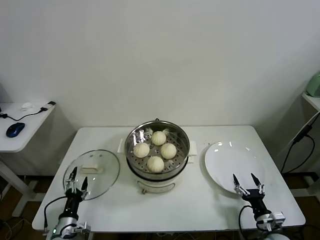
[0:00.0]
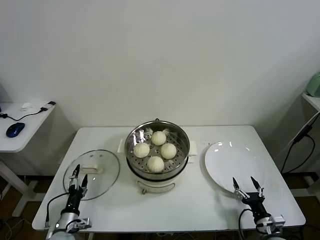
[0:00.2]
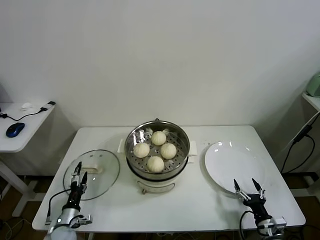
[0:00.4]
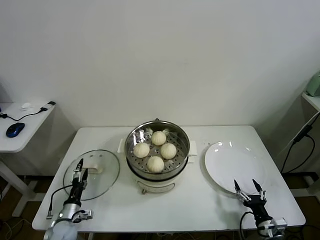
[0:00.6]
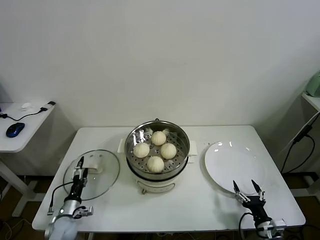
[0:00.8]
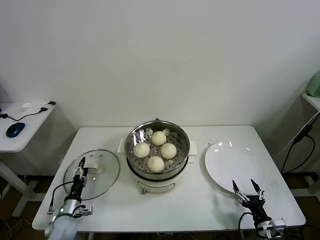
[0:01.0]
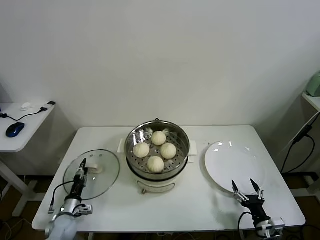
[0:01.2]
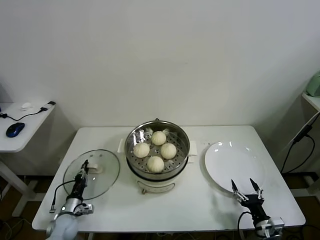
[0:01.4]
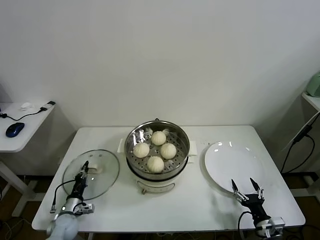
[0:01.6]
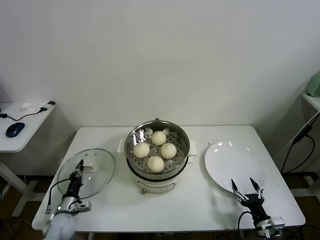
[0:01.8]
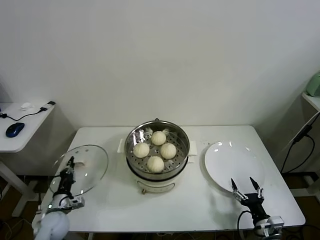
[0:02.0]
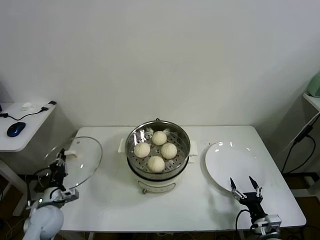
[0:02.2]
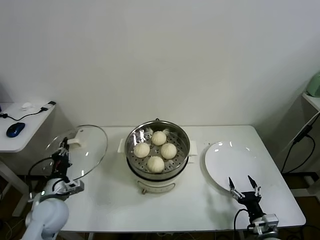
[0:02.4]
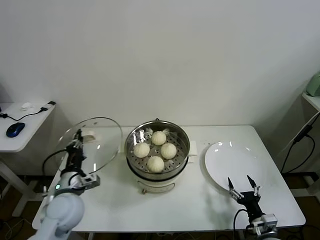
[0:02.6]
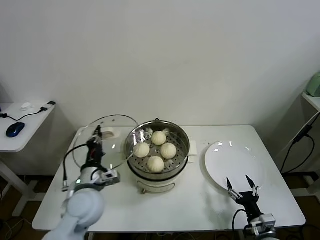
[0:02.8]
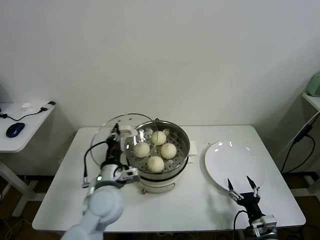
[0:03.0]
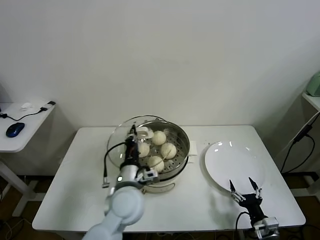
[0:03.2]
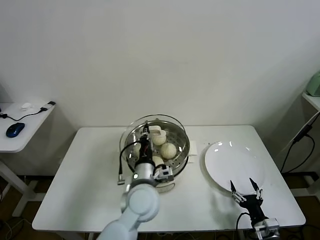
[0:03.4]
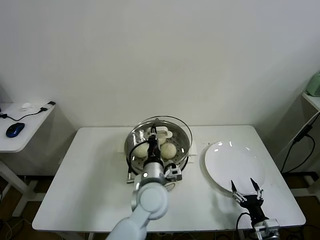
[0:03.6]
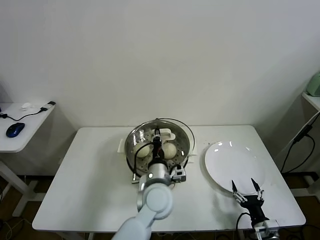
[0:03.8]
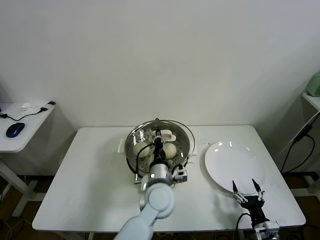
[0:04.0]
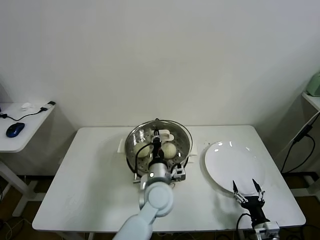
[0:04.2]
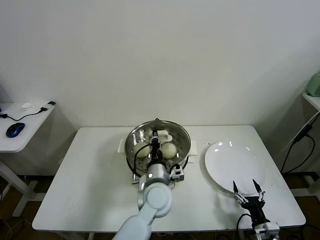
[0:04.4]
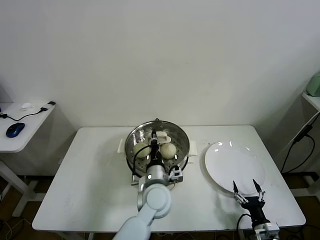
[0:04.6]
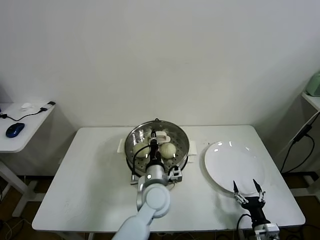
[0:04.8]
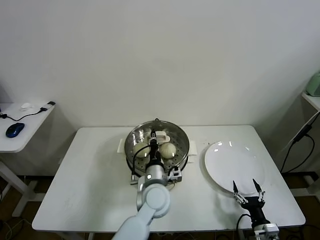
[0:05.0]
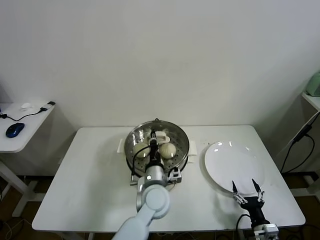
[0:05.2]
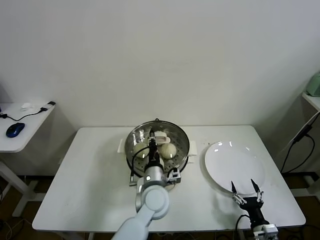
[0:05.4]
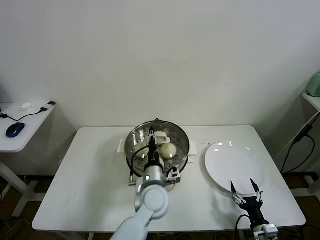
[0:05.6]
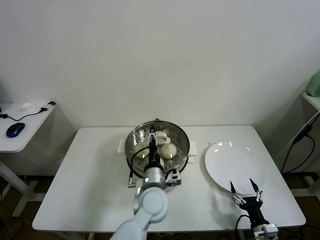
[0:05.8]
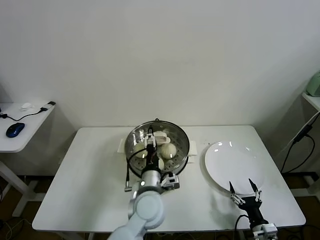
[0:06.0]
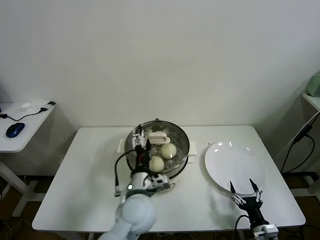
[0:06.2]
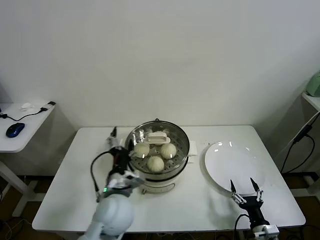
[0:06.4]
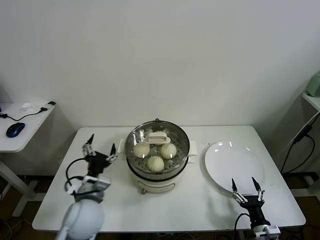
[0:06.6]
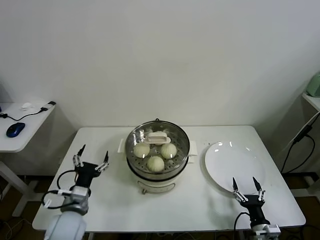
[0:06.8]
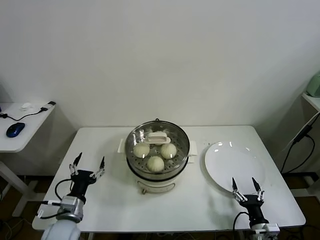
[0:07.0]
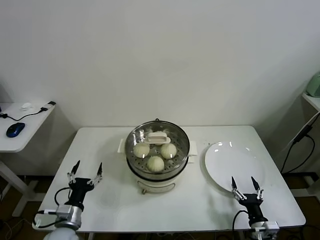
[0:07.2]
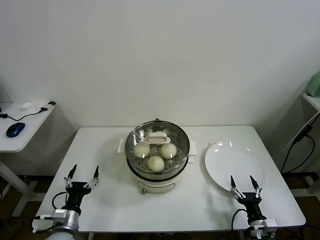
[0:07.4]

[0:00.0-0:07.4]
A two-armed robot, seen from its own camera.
Task of the whole recording: take steamed baozi put them in steamer.
Step, 0:01.8 to 0:05.8: Place the pot lid on the steamer with left gripper.
0:00.0 to 0:01.4: The left gripper goes roughly 10 cm forward, and closes its fingers.
0:01.4 to 0:03.0: The left gripper travels upward and to the right by approximately 35 cm.
0:03.0 to 0:04.4: The left gripper goes about 15 cm to the right.
0:04.4 to 0:06.0: The left gripper opens up.
0:06.0 to 0:07.4: The left gripper goes about 30 cm to the left.

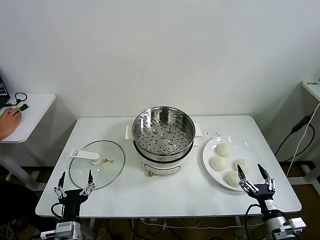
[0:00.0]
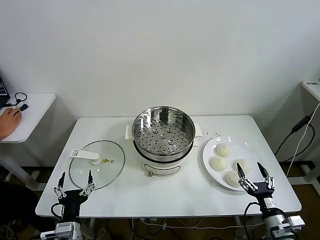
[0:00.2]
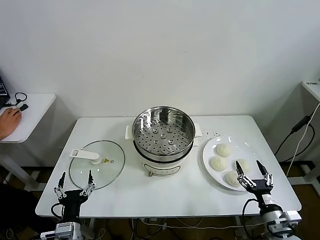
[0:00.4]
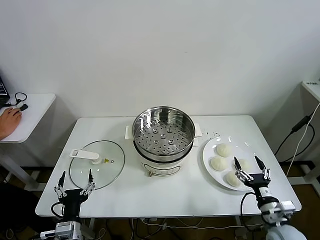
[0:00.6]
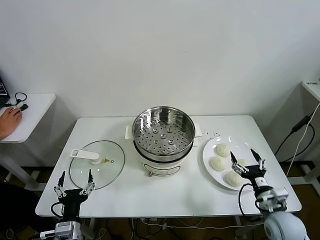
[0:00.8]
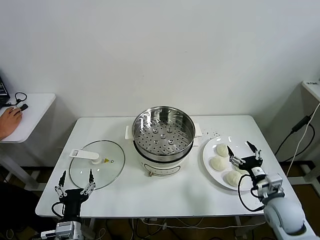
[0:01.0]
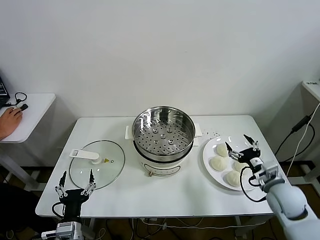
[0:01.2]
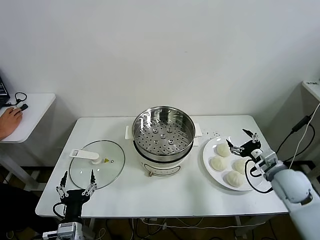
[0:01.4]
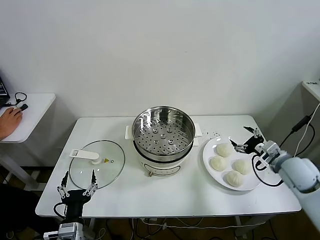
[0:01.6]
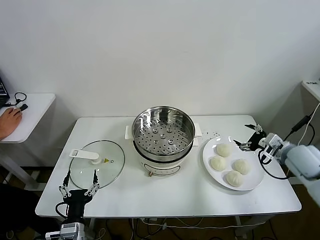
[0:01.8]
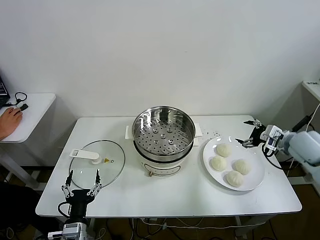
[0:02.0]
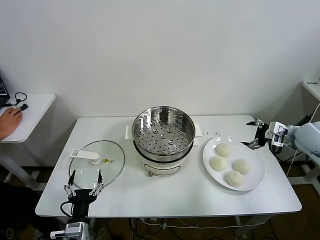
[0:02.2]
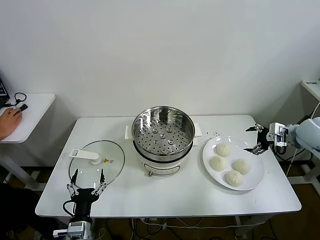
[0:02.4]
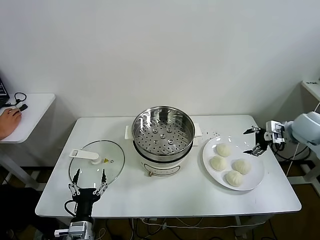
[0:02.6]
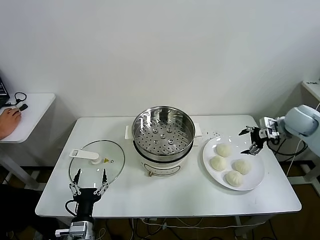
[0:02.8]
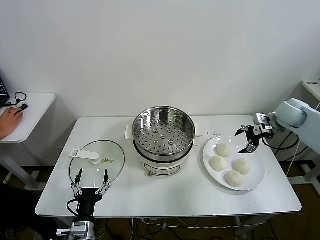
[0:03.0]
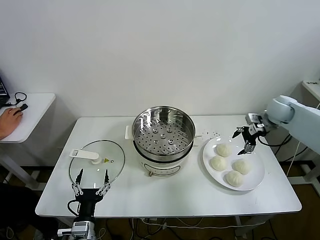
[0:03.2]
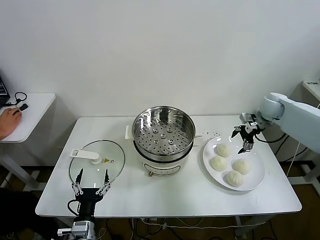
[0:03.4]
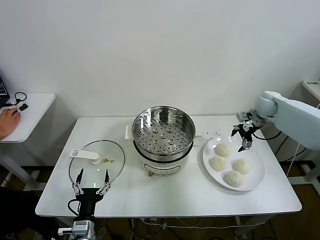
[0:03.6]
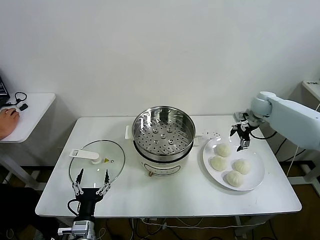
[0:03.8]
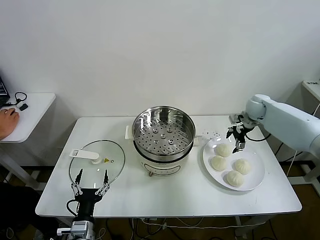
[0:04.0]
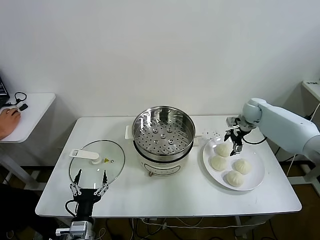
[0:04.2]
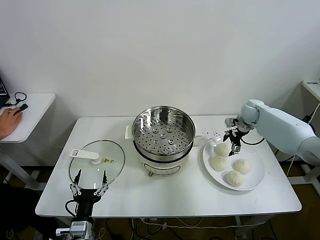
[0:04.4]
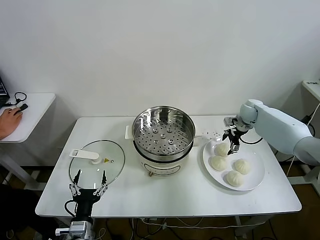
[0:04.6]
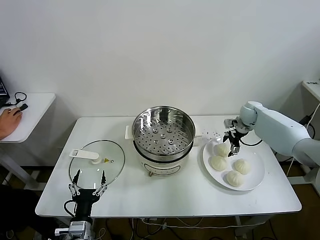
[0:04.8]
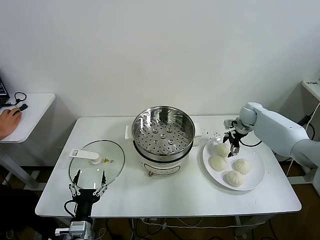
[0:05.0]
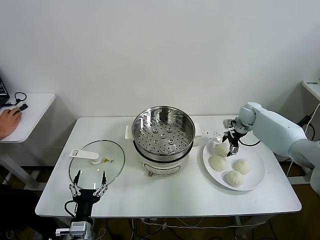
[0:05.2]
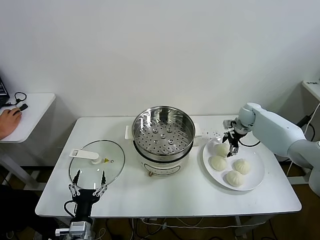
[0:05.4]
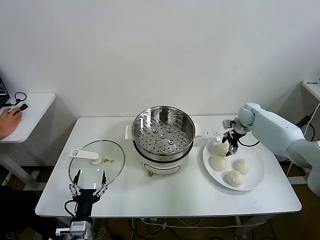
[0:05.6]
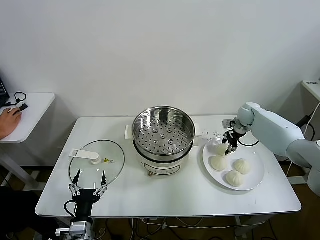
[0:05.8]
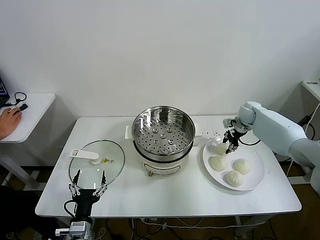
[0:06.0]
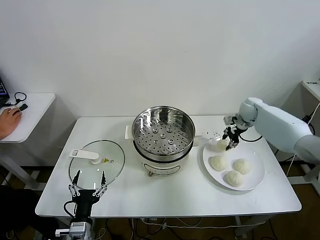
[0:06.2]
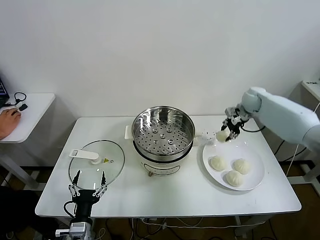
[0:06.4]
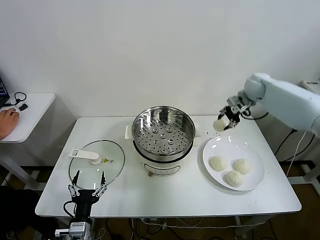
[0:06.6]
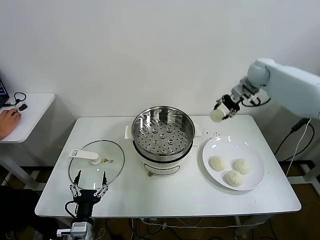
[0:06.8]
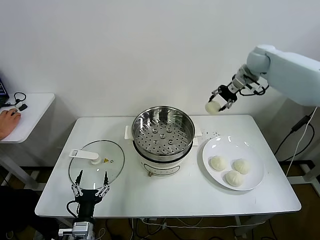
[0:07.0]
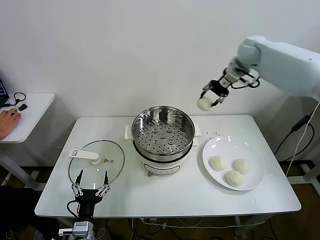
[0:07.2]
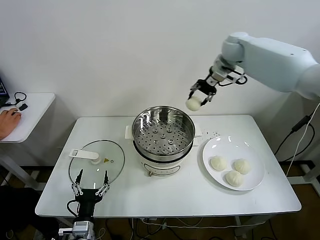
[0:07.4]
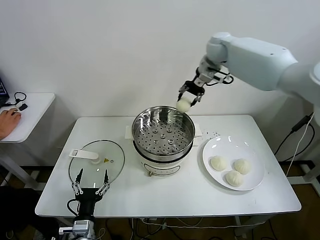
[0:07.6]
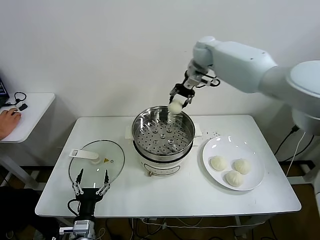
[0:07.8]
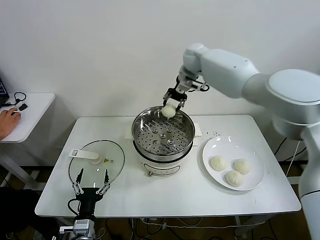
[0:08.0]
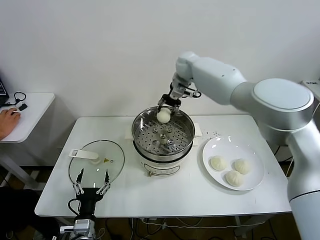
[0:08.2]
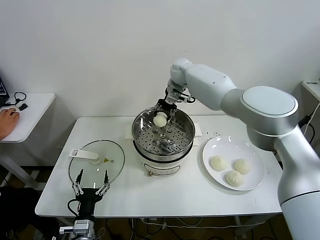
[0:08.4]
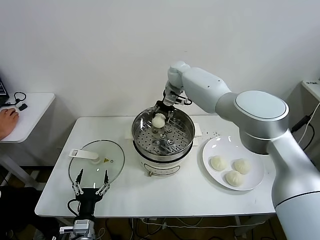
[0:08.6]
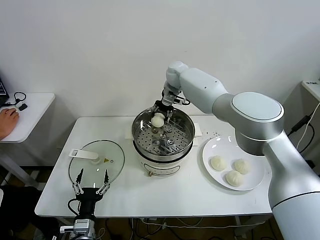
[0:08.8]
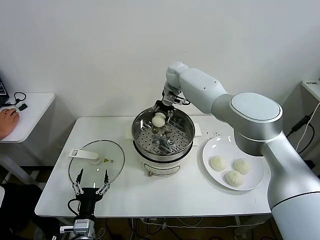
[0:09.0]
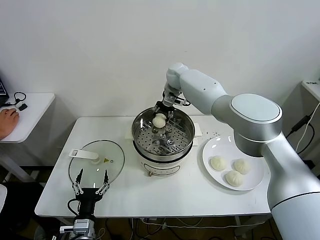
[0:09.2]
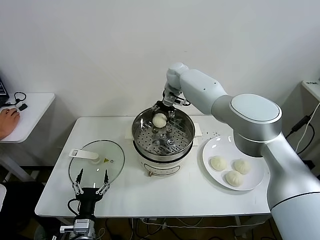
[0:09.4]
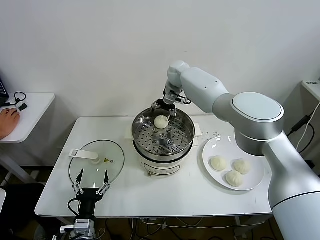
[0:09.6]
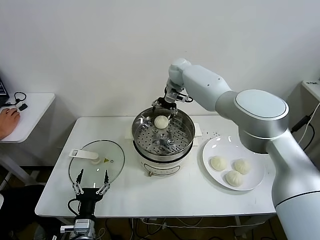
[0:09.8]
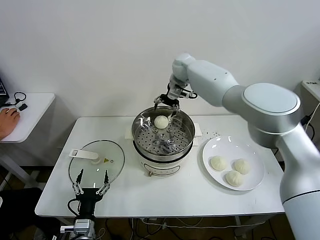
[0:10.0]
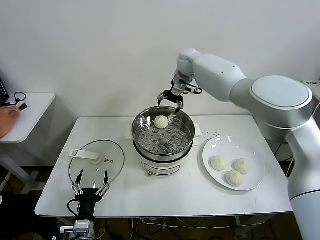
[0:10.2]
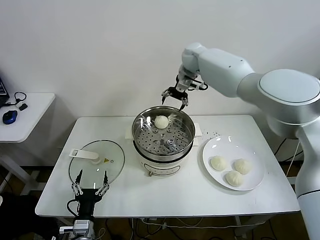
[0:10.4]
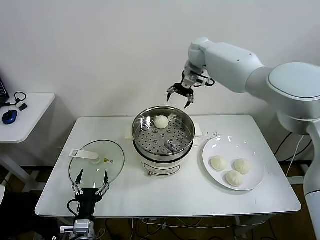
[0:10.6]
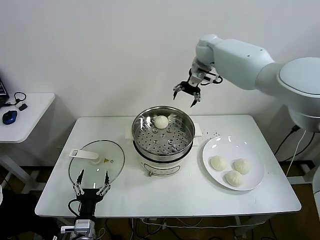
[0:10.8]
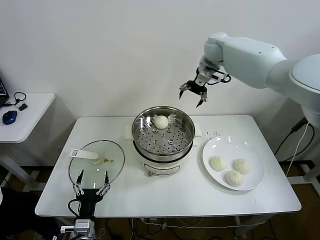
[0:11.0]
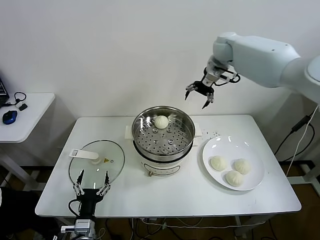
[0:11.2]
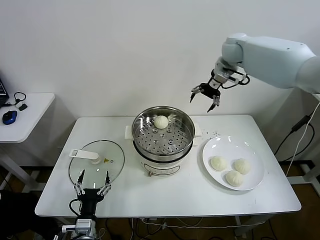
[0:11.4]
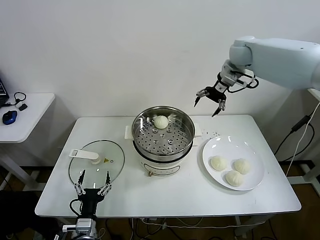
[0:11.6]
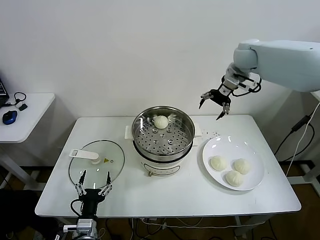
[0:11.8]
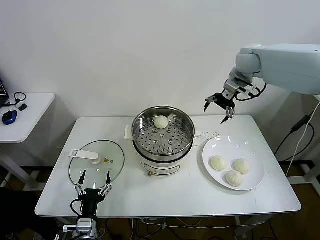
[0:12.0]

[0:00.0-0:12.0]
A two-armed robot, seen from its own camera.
Task of the whole recording: take steamed baozi put them in steamer.
Step, 0:00.0 to 0:05.8: Grasp the baozi in the plate with right gripper.
Step, 0:06.0 to 0:09.4: Place the baozi on the steamer with right gripper.
0:01.6 to 0:03.0: The right gripper goes some 15 cm forward.
0:03.0 to 0:04.4: The right gripper is displaced forward, downward and to the left by roughly 10 cm.
0:04.4 to 0:06.0: The right gripper closes.
0:06.0 to 0:07.6: The right gripper travels upward and to the left by some 30 cm.
0:07.6 to 0:09.0: The right gripper heads downward and to the left, covering roughly 15 cm.
0:09.0 to 0:10.4: The right gripper travels upward and to the right by roughly 10 cm, and opens its fingers.
0:10.4 to 0:12.0: The right gripper is displaced to the right and backward by some 20 cm.

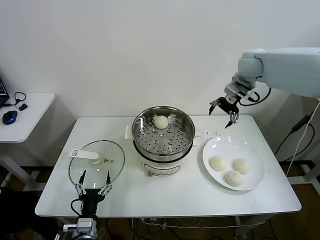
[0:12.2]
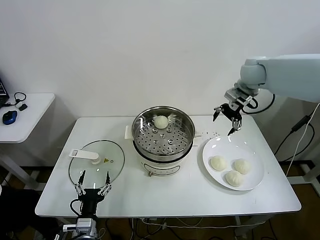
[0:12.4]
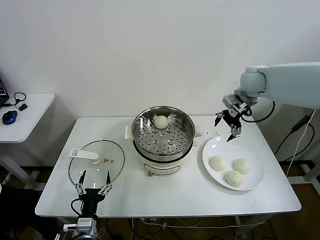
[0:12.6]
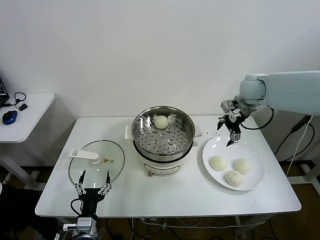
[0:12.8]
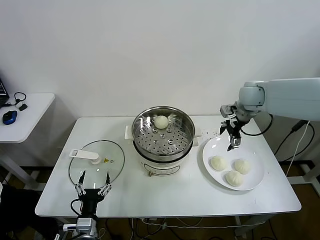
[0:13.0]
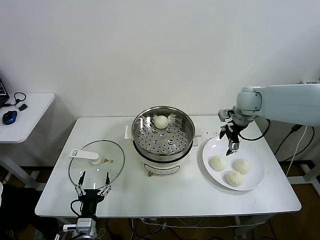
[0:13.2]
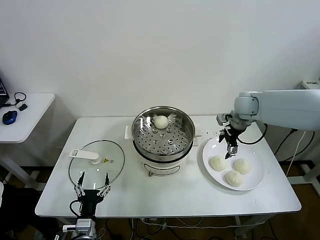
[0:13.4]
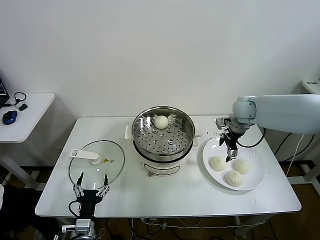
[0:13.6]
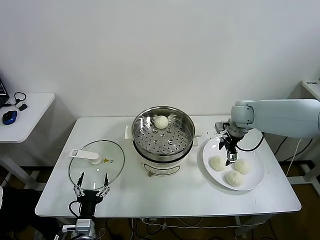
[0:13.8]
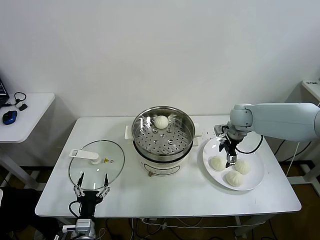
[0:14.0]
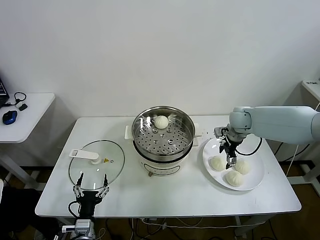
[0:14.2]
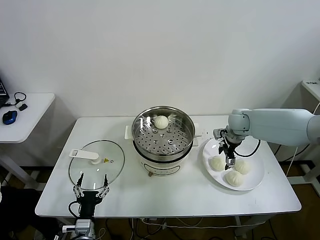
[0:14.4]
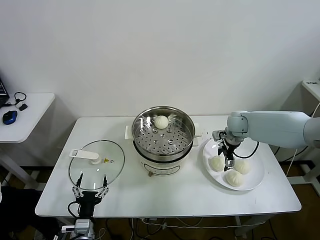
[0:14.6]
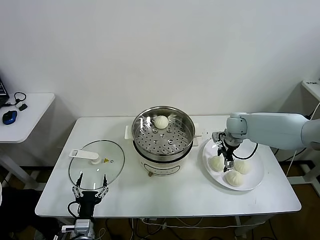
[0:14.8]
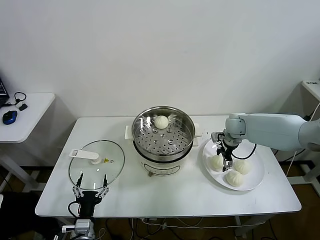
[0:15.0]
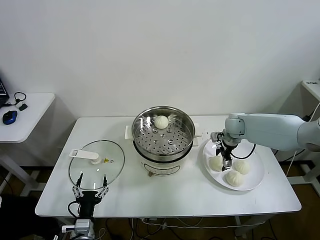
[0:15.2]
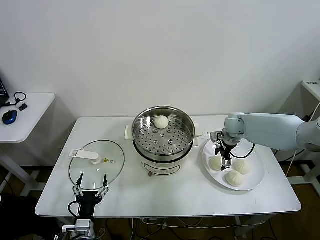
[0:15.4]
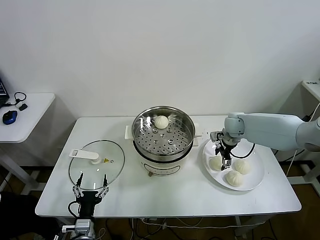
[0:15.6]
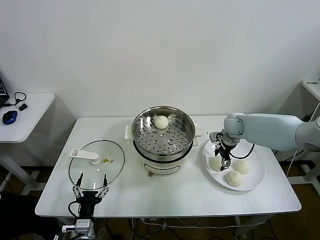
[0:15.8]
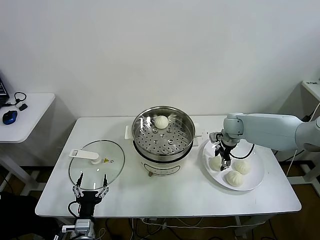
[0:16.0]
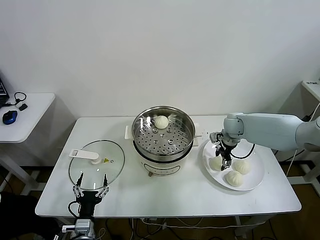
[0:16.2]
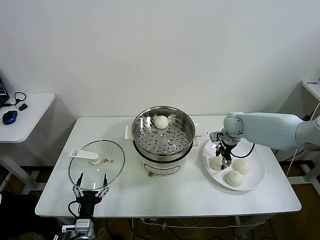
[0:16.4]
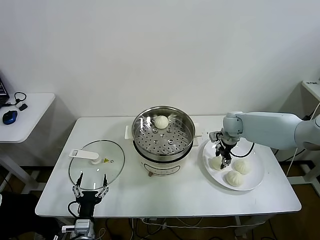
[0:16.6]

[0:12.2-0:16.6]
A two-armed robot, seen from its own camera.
Task of the whole recording: take steamed baozi put them in steamer.
Step, 0:12.2 to 0:16.2: Grasp the baozi in the plate with right gripper.
0:12.2 to 0:13.6: The right gripper shifts about 15 cm downward.
0:13.6 to 0:15.2: The right gripper shifts roughly 10 cm downward.
0:15.2 to 0:16.6: The right gripper closes its fingers.
